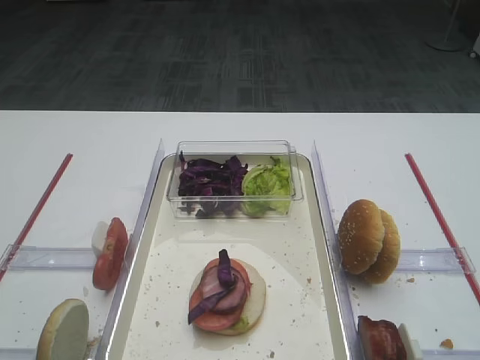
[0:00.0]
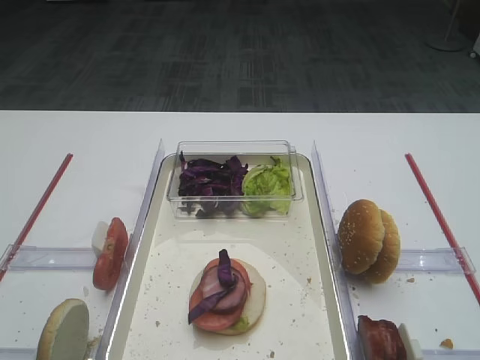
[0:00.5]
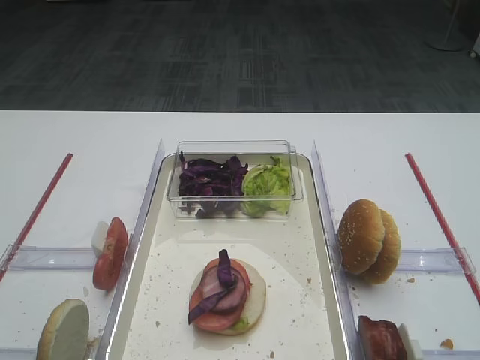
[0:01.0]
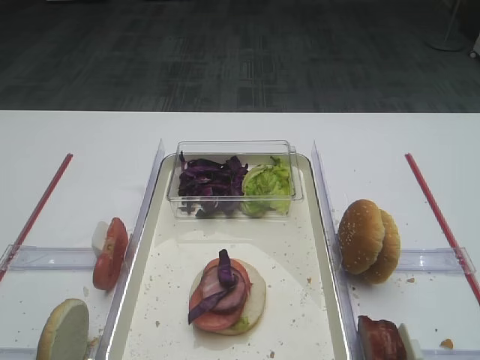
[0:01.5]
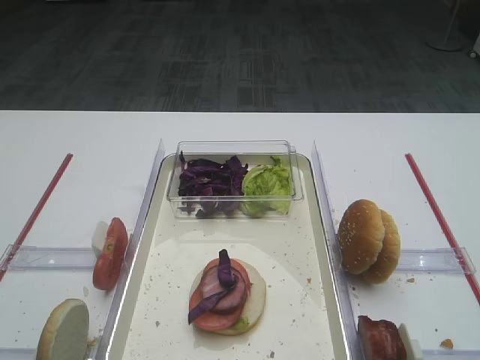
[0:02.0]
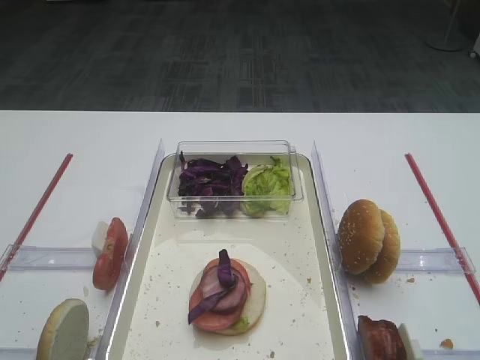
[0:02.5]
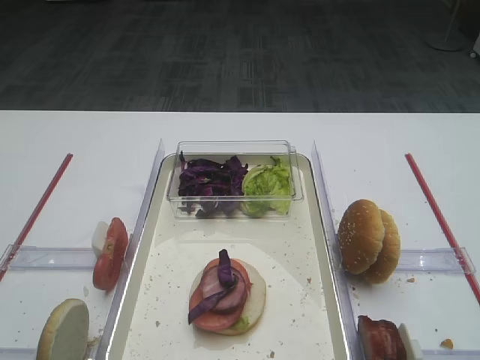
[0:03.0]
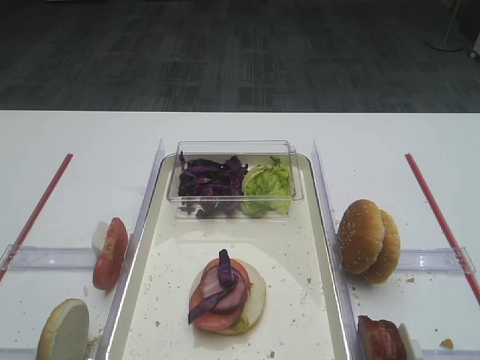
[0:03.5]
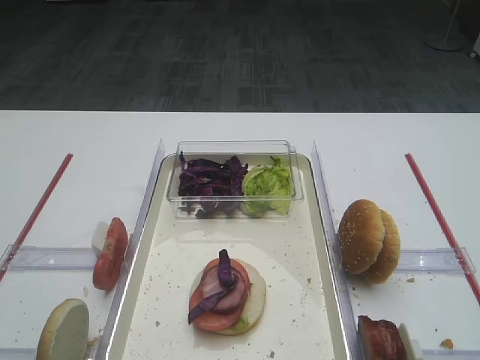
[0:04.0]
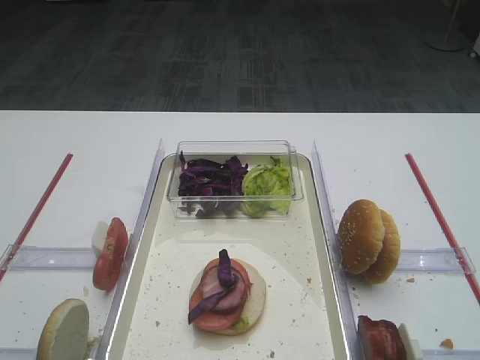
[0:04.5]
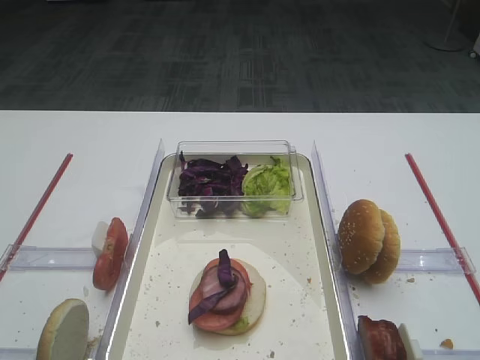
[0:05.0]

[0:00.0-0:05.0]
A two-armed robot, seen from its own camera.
0:00.0 to 0:05.0: The two grippers keep their place.
